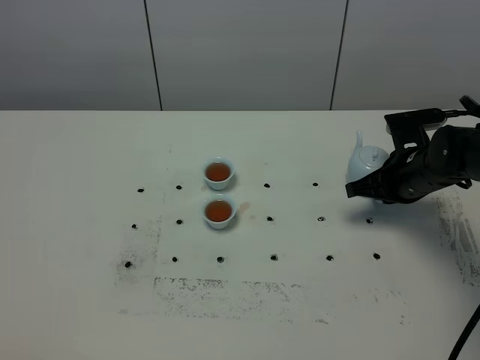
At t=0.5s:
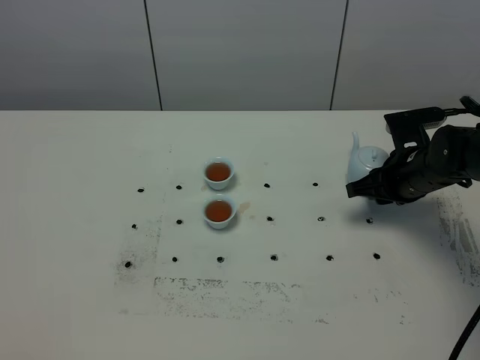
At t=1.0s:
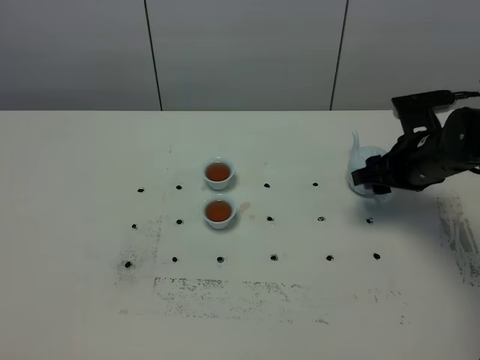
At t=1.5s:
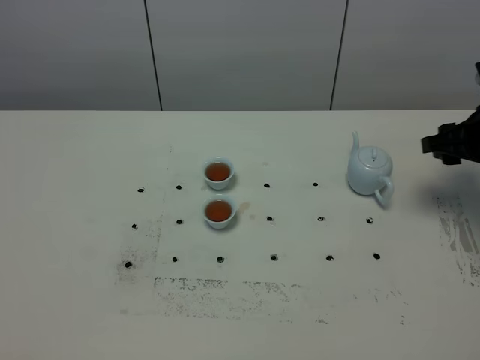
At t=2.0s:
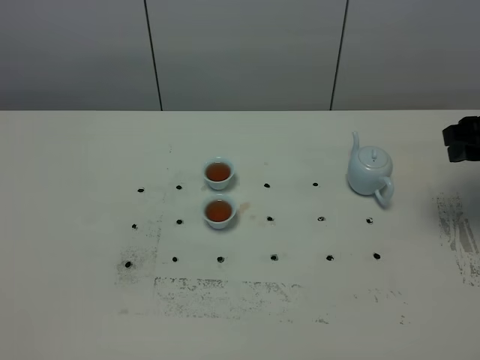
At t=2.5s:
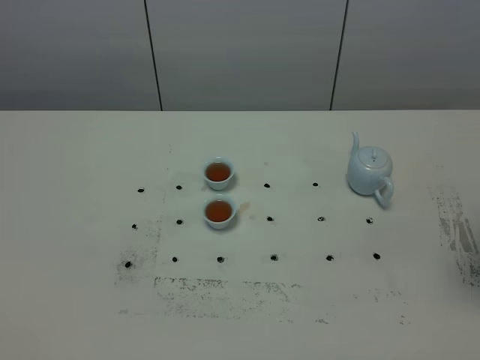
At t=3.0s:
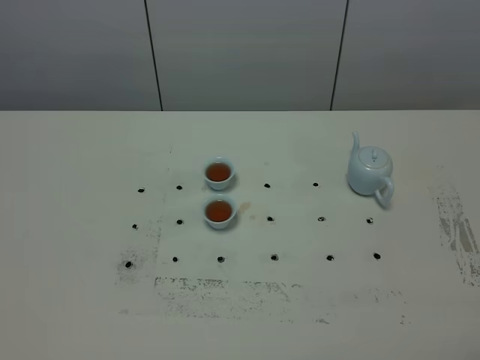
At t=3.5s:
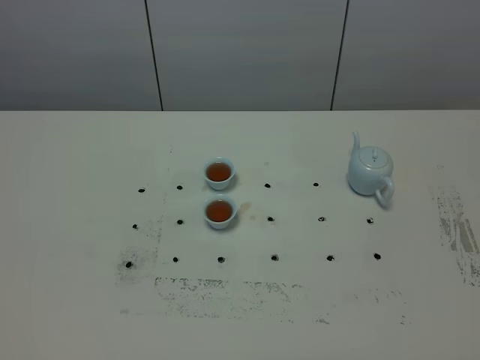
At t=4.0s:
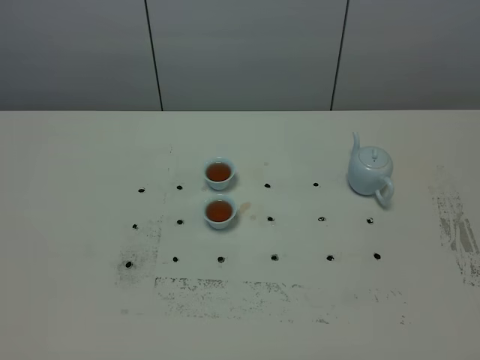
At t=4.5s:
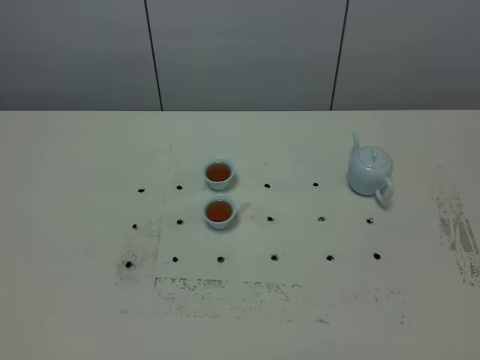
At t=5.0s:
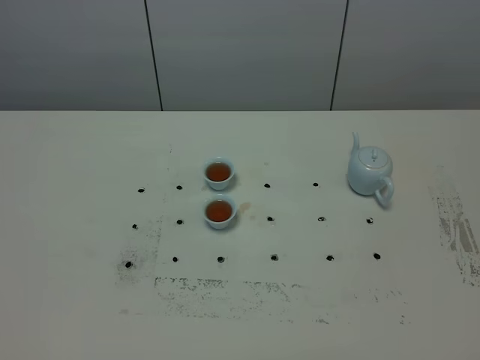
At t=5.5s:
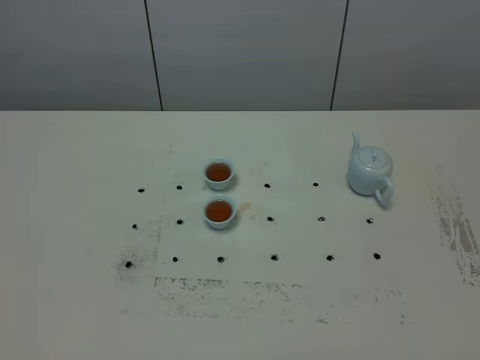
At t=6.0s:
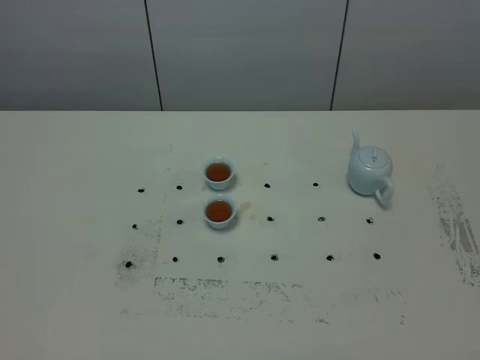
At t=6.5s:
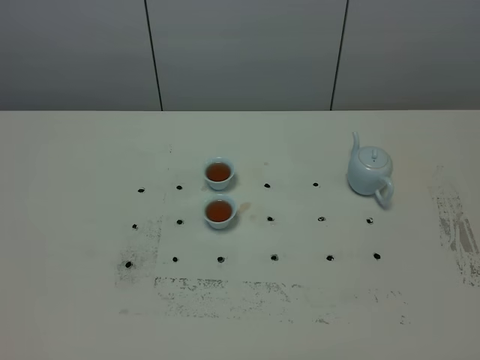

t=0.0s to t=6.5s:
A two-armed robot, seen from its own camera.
Task of the whole recording: grasp the blue porcelain teapot and pour the tea into the two blue porcelain teacups one by one, put the blue porcelain teapot back in its original place.
t=0.0s to t=2.0s: The right gripper shifts some 15 cm upward and to the right, and opens up.
t=2.0s to t=4.5s: The right gripper travels backward by approximately 35 cm.

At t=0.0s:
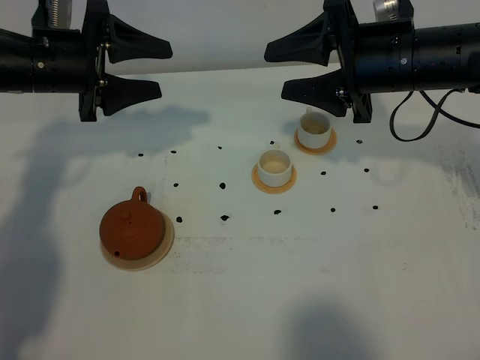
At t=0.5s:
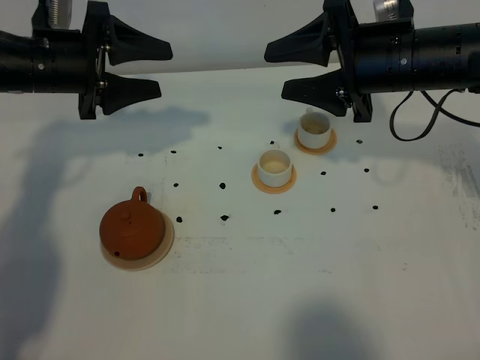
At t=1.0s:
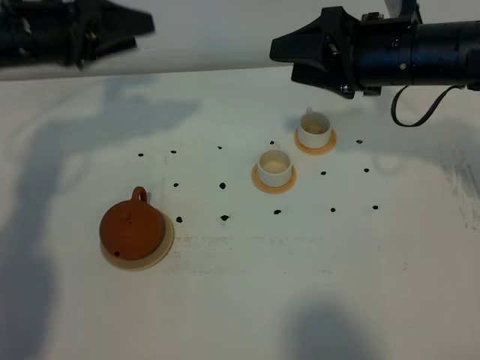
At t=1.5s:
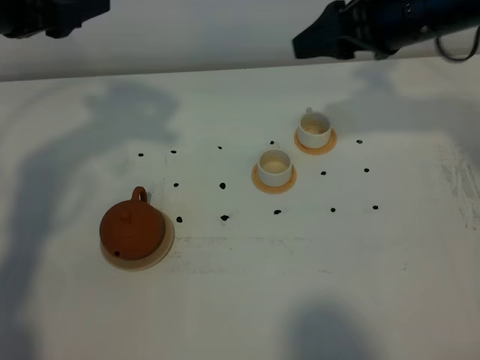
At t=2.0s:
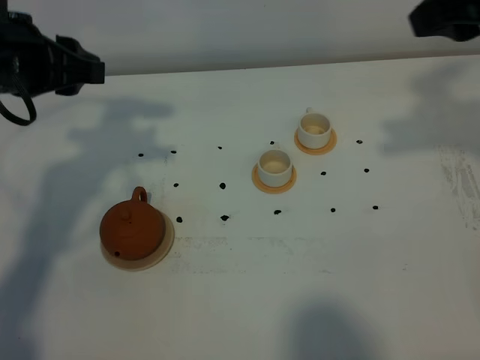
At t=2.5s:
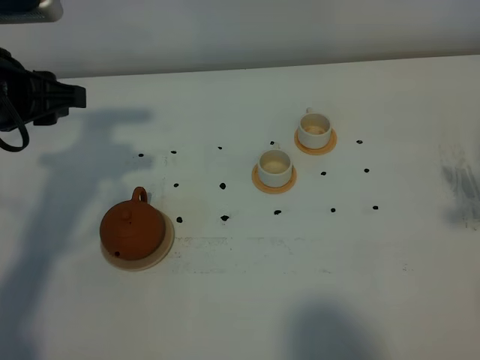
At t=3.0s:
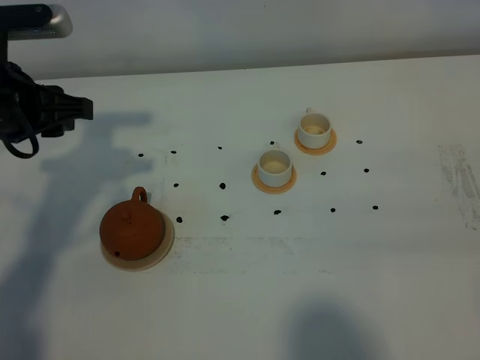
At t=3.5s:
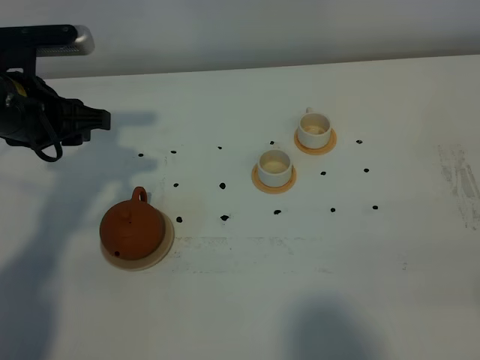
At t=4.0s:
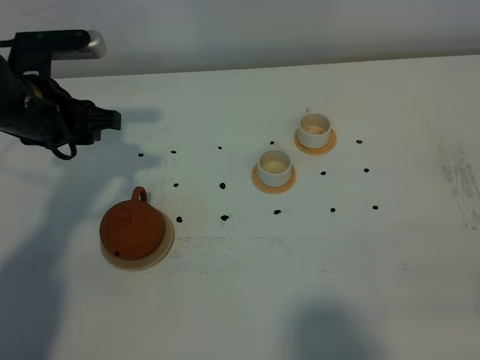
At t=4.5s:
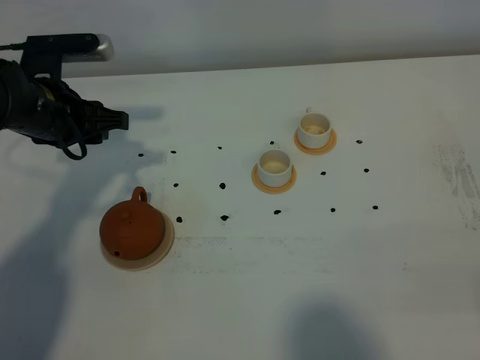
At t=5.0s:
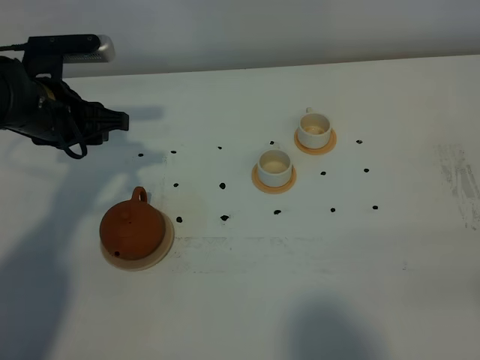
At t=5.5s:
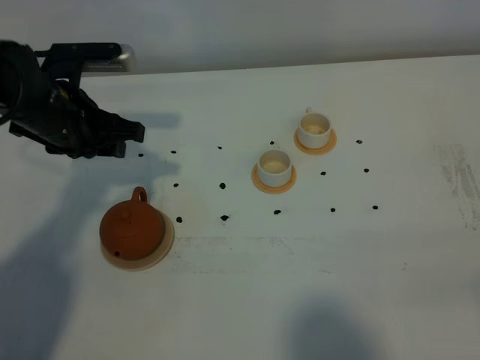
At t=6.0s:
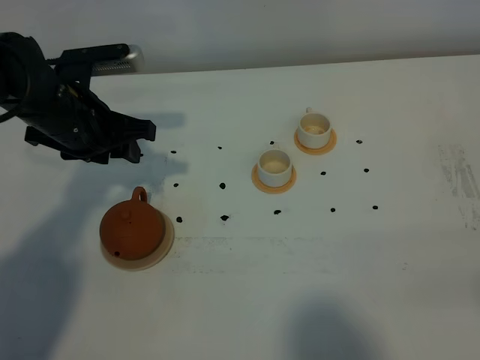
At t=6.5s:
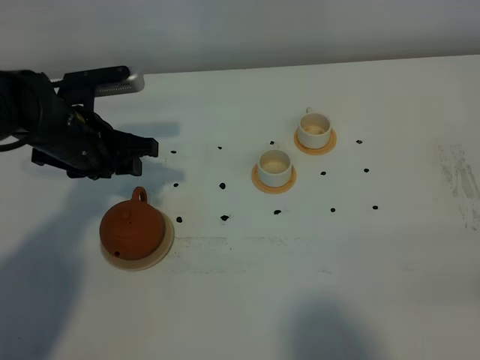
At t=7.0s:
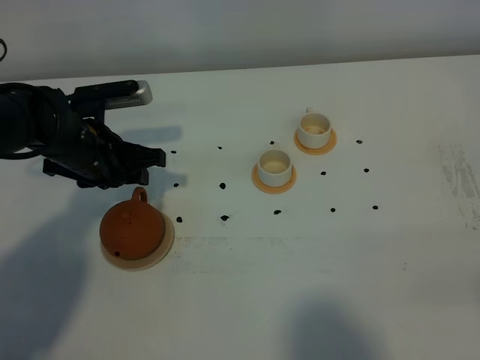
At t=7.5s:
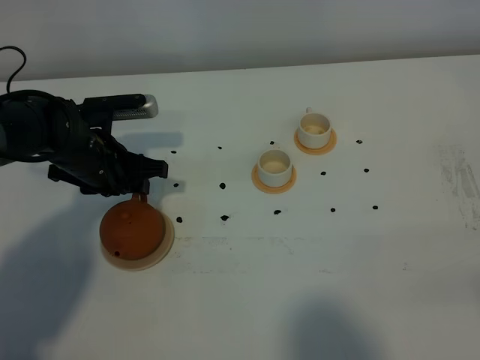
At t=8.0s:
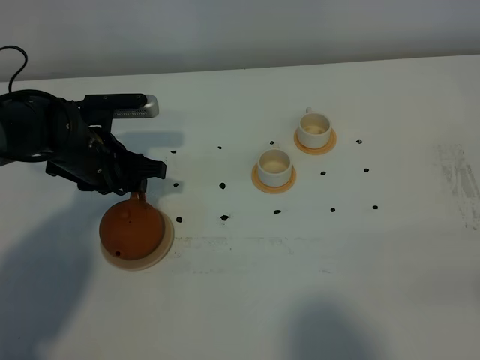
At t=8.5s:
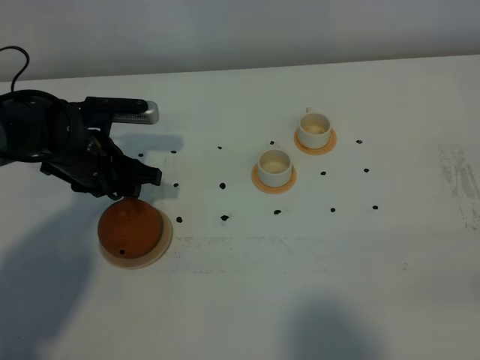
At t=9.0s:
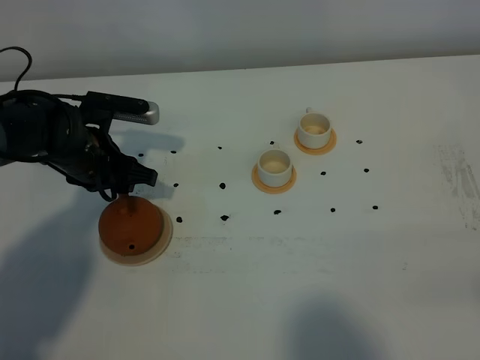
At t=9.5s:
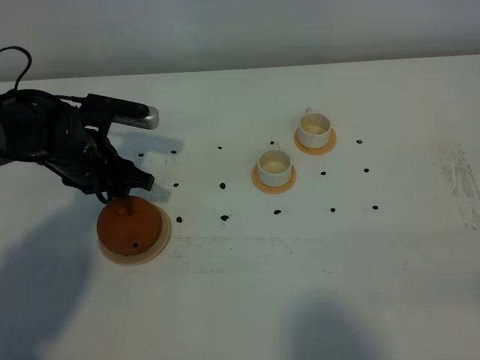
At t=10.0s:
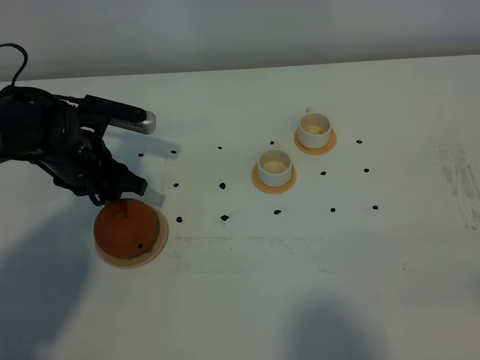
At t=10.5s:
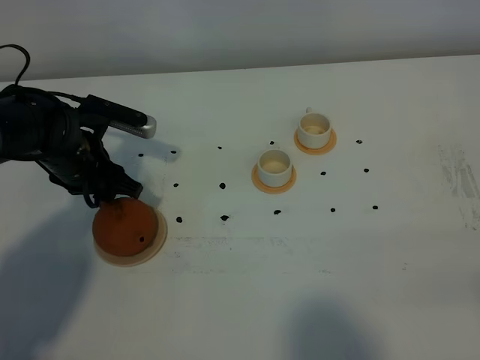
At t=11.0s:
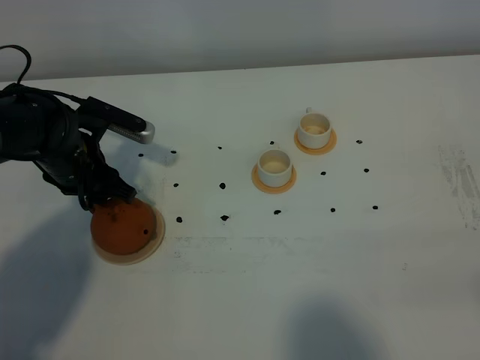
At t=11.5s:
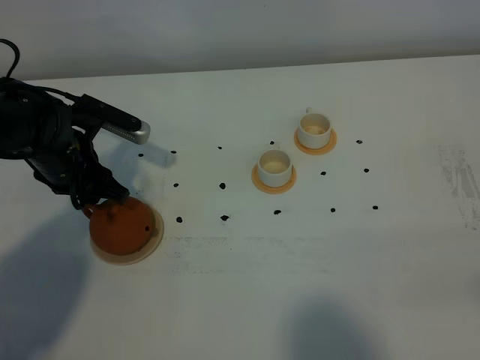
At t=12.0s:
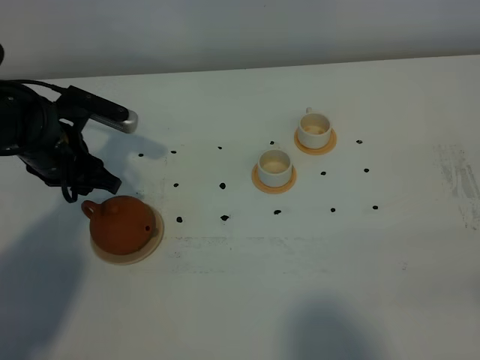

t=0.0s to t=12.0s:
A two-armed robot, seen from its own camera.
Task of the whole recording: grasp the brown teapot and pour the tea into the two white teacups one by one, put the brown teapot back in its original place.
t=0.0s to t=2.0s: The left gripper shifts some 10 cm backward and upward. The right gripper moves upward, backward and to the right, about 15 cm.
t=2.0s to t=4.0s: The left gripper is displaced downward by some 10 cm. Meanwhile the right gripper moves backward and downward, roughly 30 cm.
t=4.0s to t=6.0s: The grippers stay close to where they were, moving slightly.
t=6.0s to t=8.0s: The left gripper moves downward, some 10 cm.
t=8.0s to t=10.0s: The grippers move only a little.
t=10.0s to t=12.0s: The grippers move only a little.

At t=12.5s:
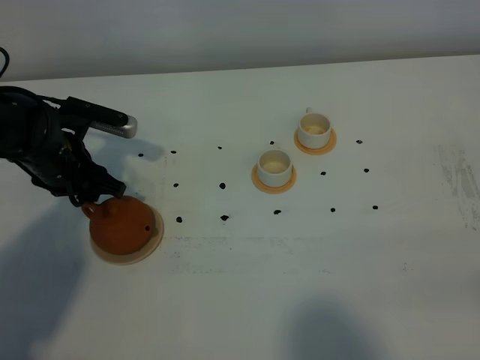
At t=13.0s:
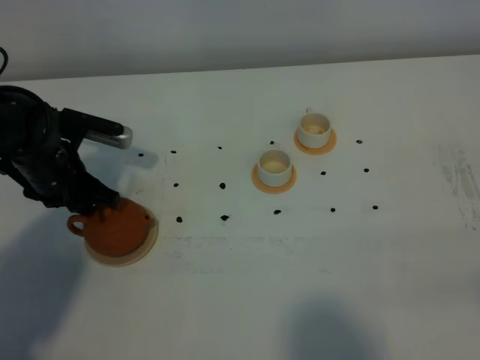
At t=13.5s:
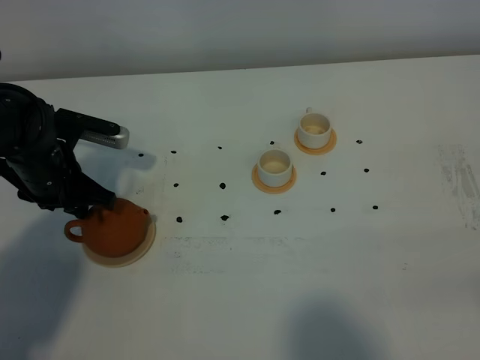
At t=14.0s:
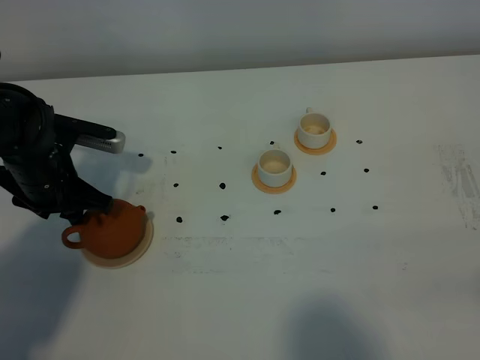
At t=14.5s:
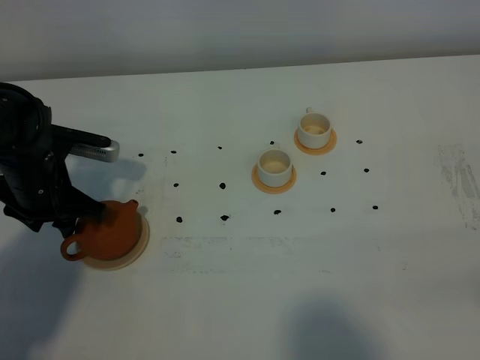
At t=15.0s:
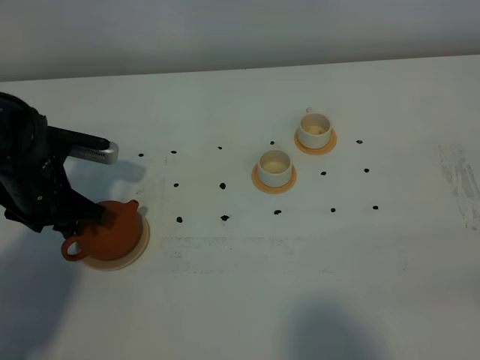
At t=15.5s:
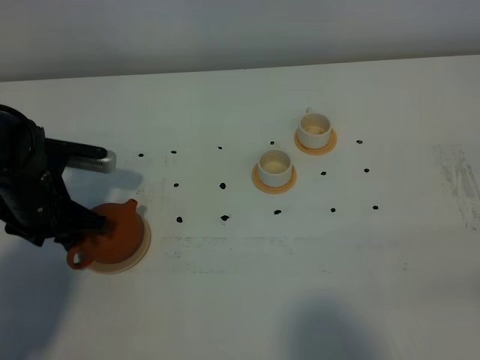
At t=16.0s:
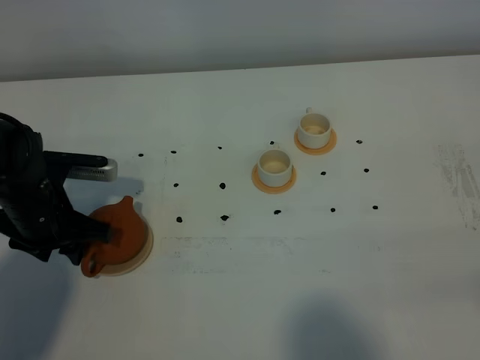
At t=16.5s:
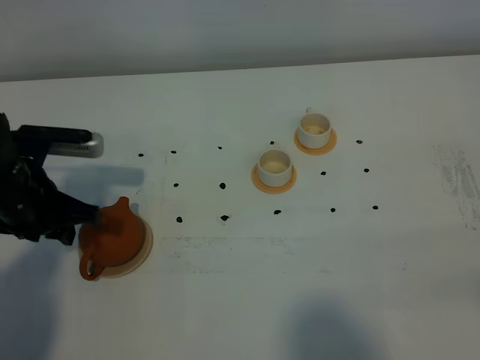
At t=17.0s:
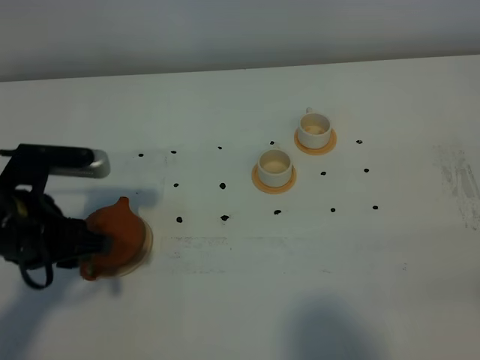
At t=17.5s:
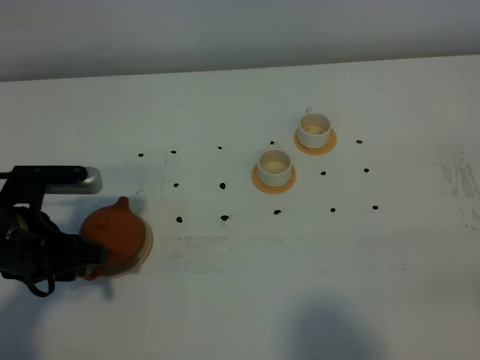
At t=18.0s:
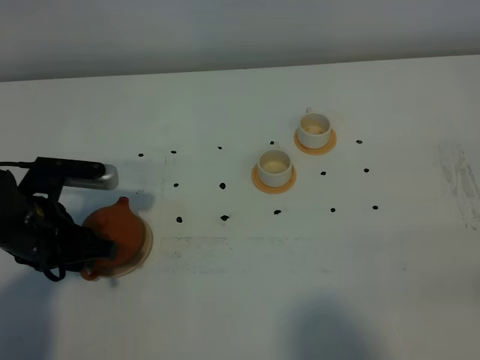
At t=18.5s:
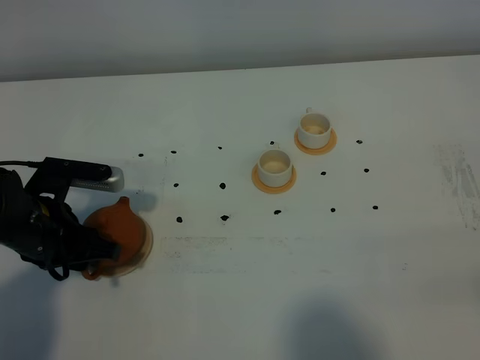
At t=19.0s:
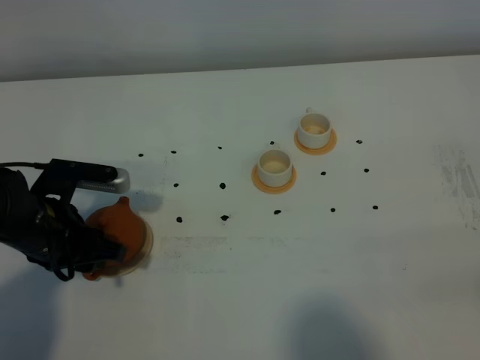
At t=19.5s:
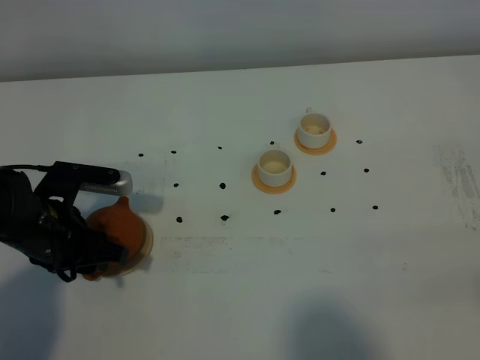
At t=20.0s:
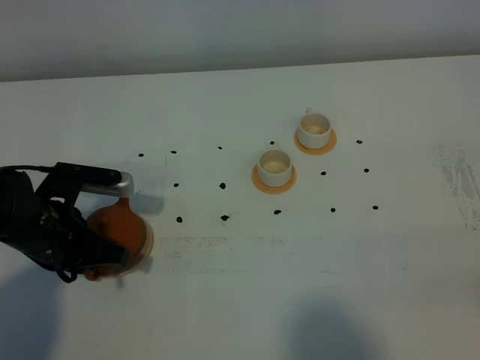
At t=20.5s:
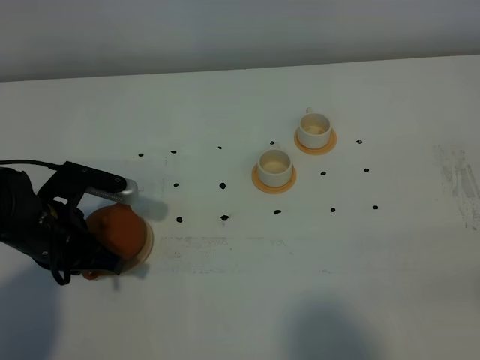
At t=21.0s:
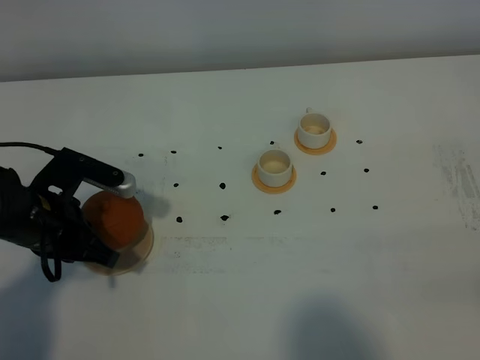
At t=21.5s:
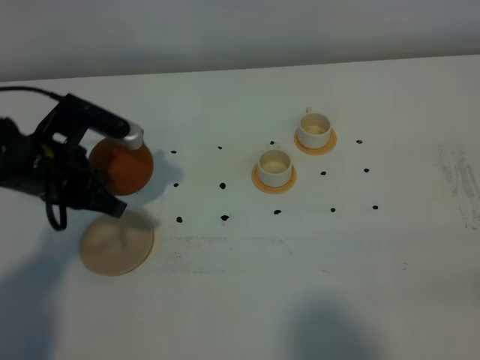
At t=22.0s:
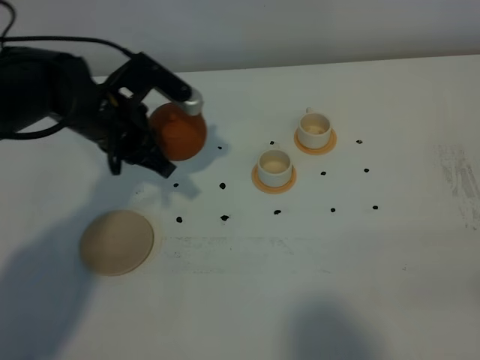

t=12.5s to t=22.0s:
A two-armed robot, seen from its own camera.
Task of the whole recording: grasp the brown teapot and pour the tea into the two white teacups one by one, put the brown teapot back in its original place.
Step, t=12.5s to t=21.0s: Pick up the teapot with the left gripper.
t=12.5s to t=14.5s: There are only small adjustments of the grippers.
t=14.5s to t=16.5s: The left gripper shifts by approximately 5 cm.
t=18.0s to t=20.0s: The left gripper closes up.
t=20.0s to t=22.0s: The left gripper heads forward, to the right and upward, covering approximately 15 cm.
